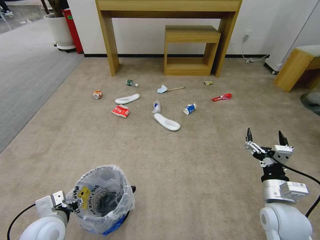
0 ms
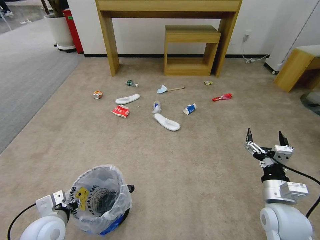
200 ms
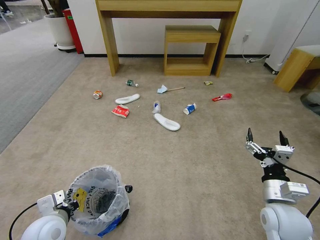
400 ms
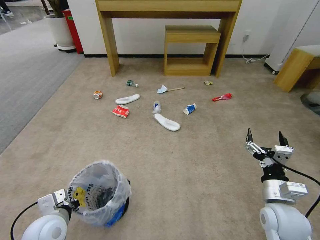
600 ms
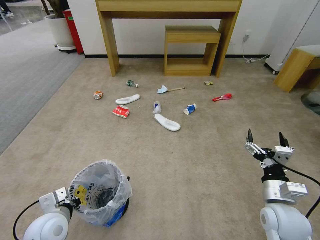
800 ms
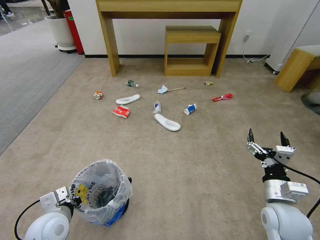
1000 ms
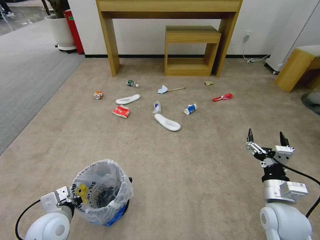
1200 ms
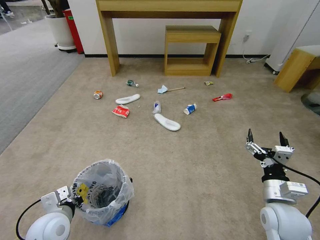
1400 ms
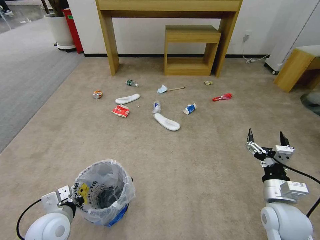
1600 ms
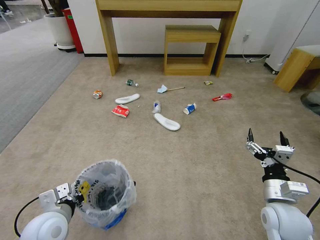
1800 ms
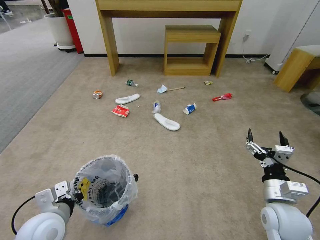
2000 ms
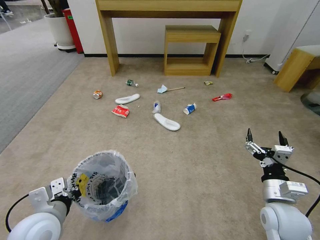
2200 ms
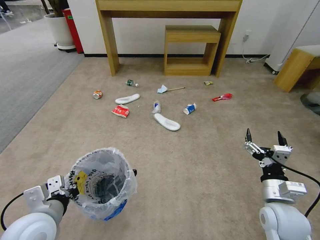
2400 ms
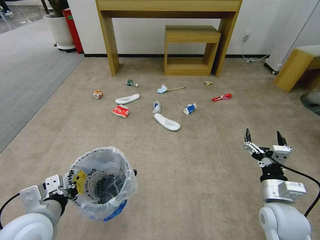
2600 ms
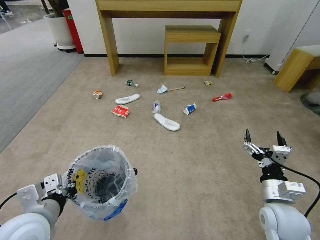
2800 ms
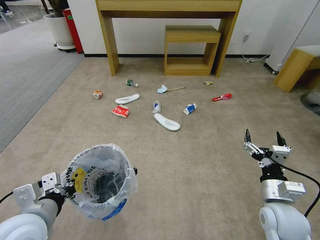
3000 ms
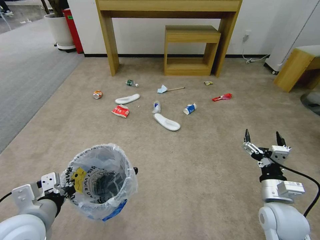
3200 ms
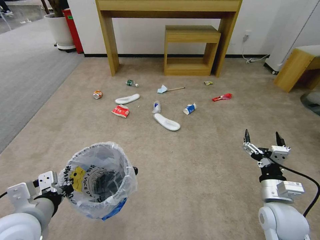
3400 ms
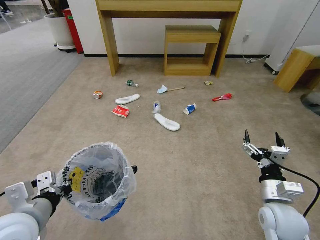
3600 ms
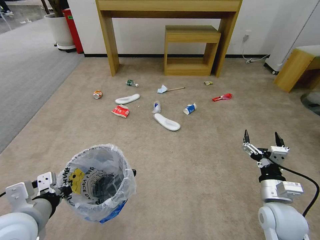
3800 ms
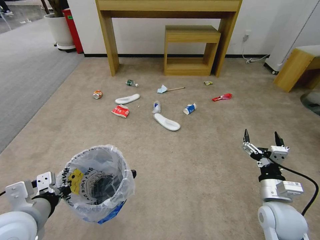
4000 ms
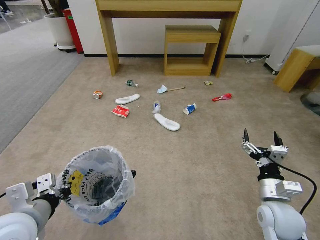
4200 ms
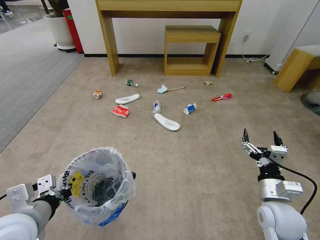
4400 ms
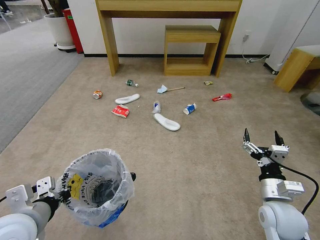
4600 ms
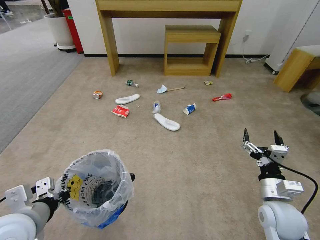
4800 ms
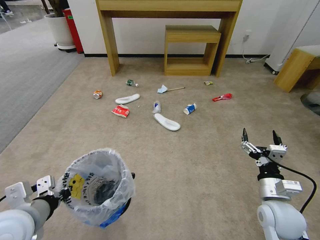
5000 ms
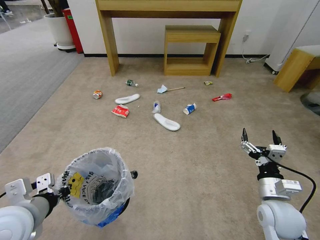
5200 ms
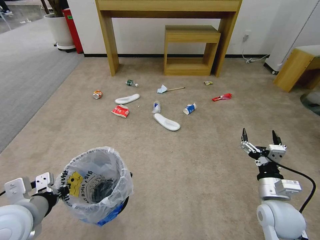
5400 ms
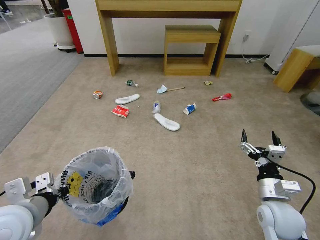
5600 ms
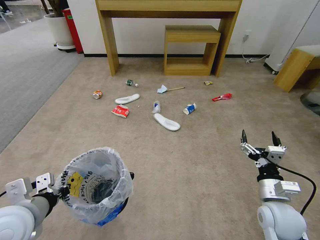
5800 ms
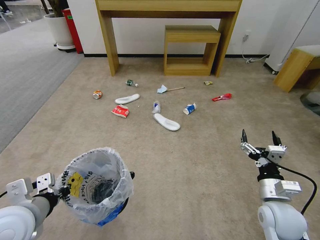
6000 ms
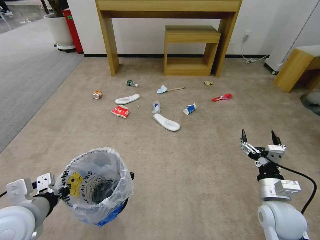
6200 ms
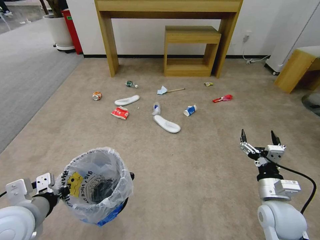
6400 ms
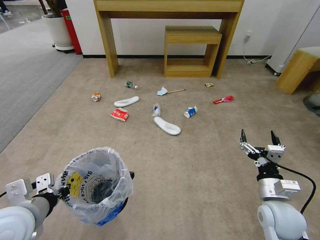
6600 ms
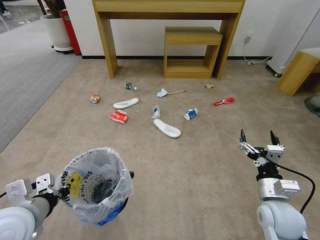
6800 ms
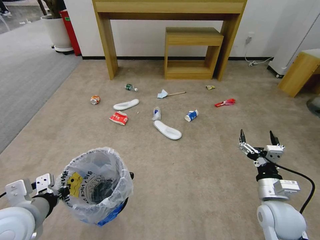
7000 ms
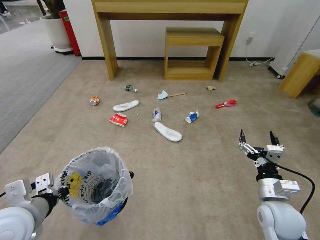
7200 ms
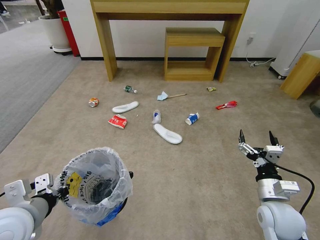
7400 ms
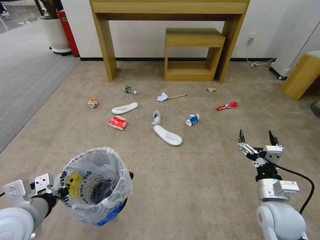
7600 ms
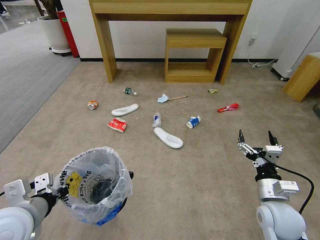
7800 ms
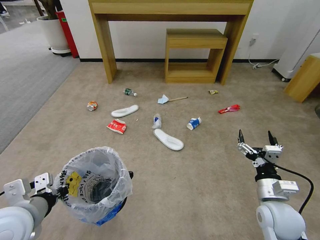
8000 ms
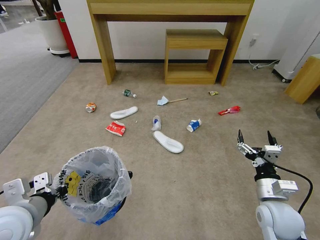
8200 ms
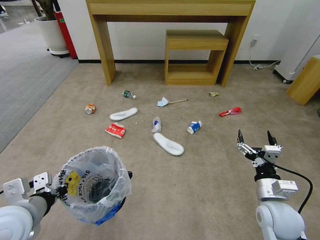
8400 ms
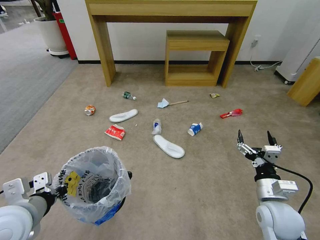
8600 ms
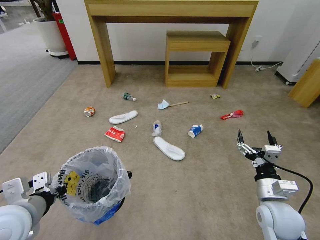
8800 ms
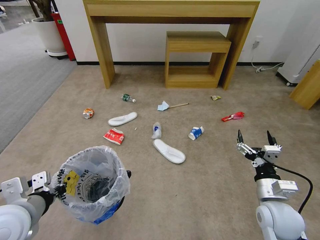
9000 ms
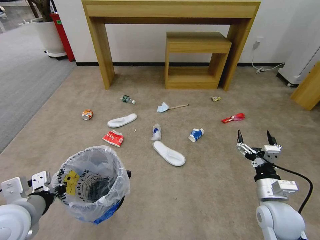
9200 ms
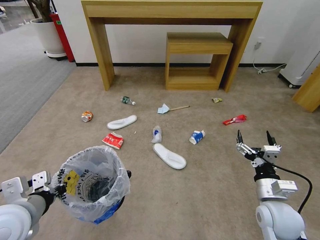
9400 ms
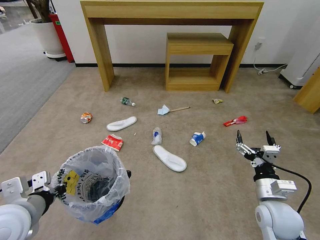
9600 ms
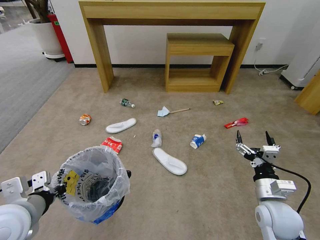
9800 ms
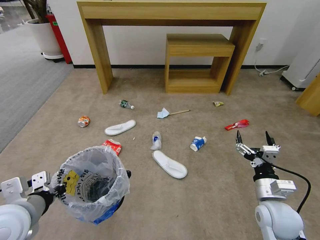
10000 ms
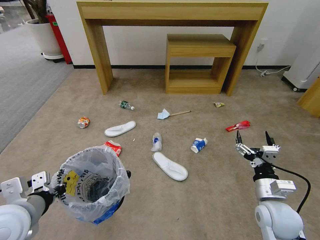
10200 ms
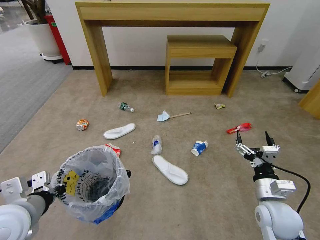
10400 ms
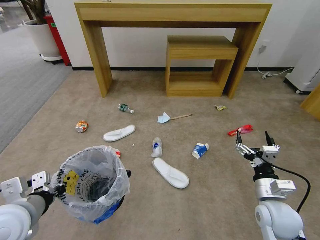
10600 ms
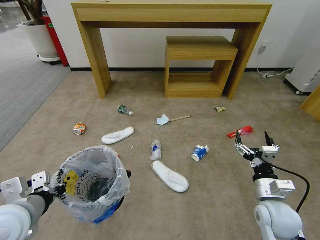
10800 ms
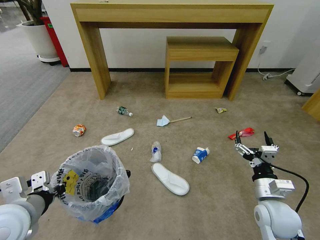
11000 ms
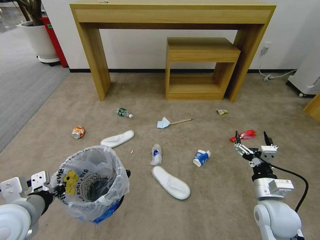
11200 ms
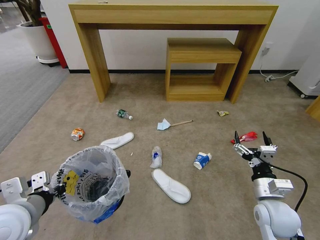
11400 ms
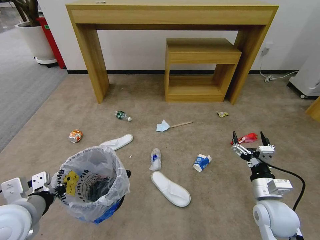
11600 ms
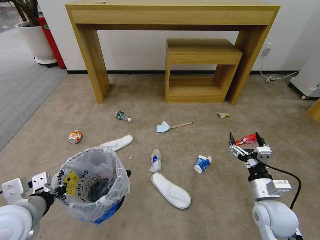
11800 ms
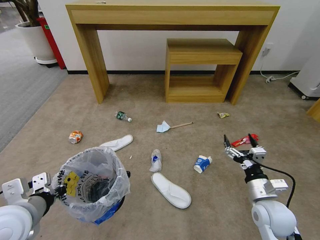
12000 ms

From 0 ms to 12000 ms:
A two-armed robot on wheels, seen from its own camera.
Task of the whole recording: Pick up the trash bin and place the garbage on the floor into it.
From 0 ms to 1600 ms: The left gripper closes its fingers.
From 1600 ms to 3000 ms: The left gripper travels upward by about 10 cm.
From 3000 ms to 6000 ms: The grippers move only a little.
From 6000 ms to 7600 ms: Neither gripper changes place.

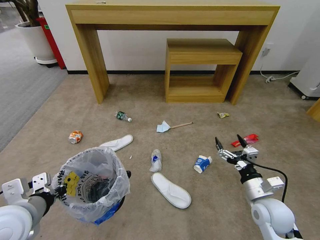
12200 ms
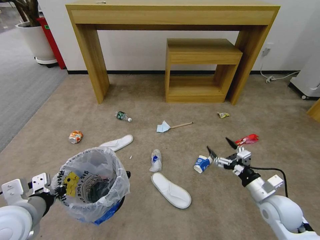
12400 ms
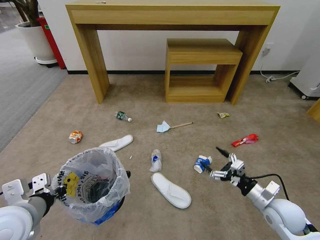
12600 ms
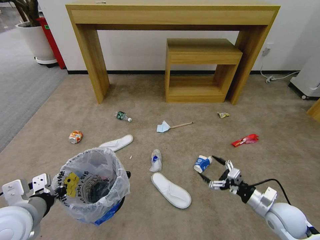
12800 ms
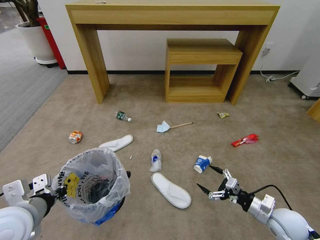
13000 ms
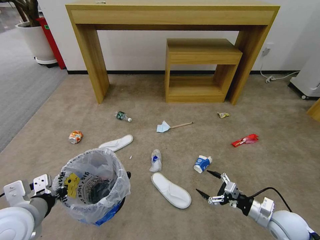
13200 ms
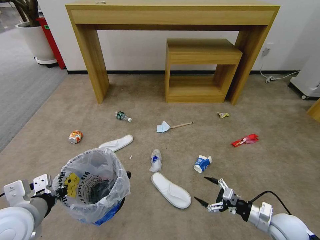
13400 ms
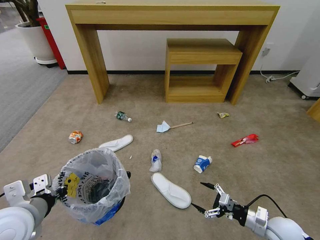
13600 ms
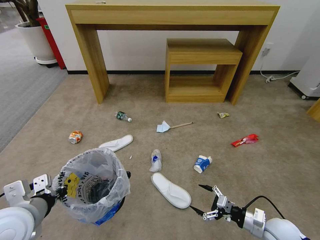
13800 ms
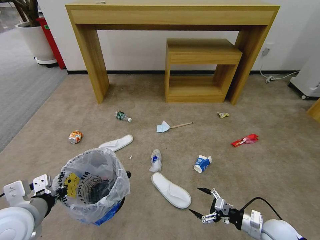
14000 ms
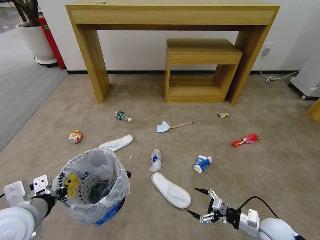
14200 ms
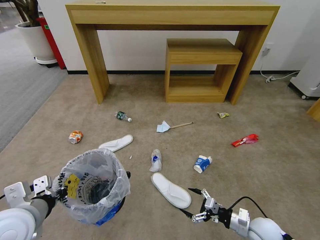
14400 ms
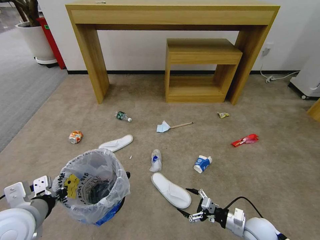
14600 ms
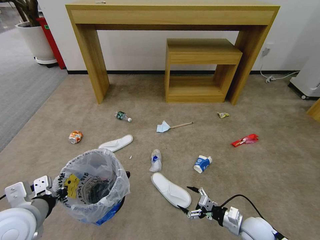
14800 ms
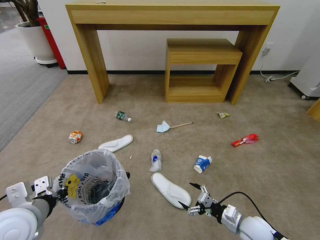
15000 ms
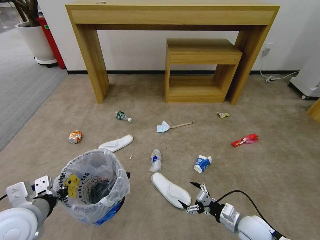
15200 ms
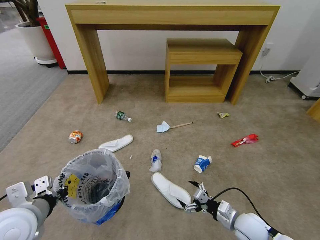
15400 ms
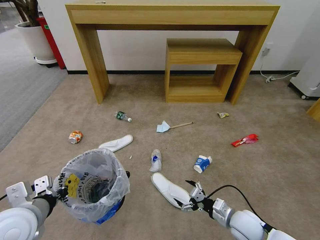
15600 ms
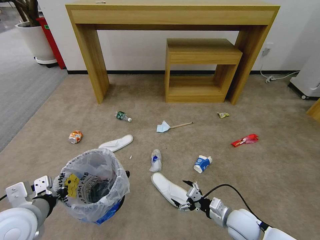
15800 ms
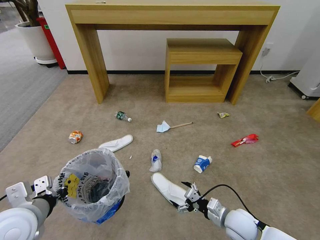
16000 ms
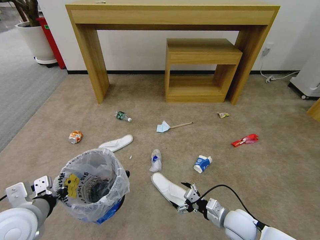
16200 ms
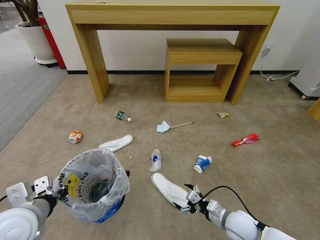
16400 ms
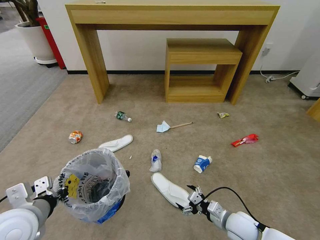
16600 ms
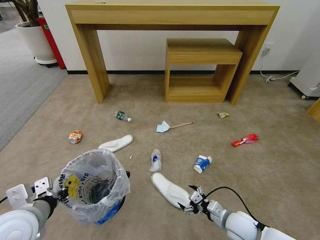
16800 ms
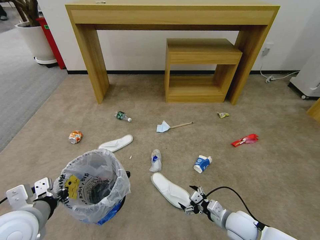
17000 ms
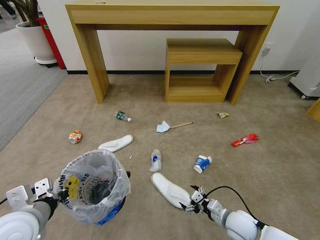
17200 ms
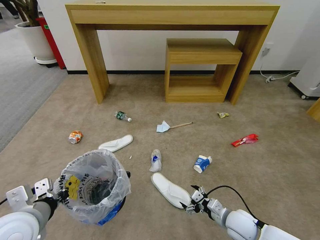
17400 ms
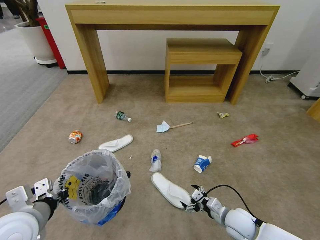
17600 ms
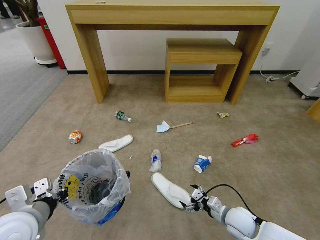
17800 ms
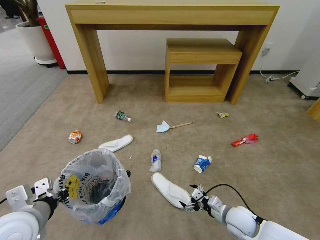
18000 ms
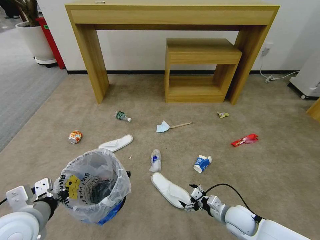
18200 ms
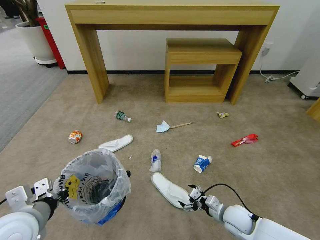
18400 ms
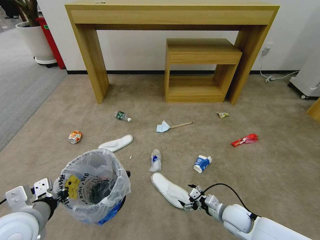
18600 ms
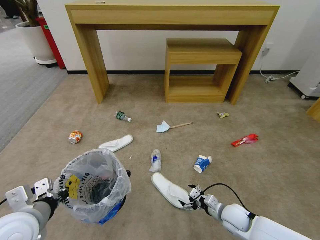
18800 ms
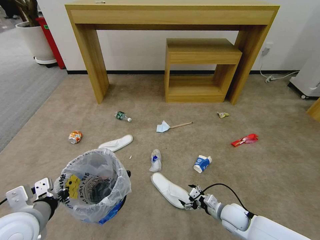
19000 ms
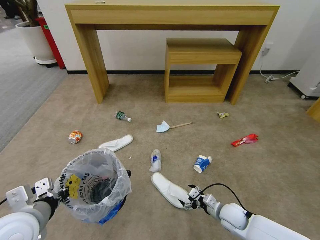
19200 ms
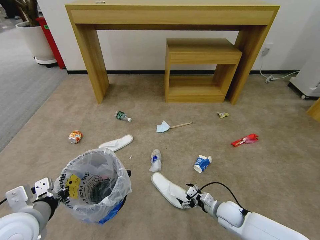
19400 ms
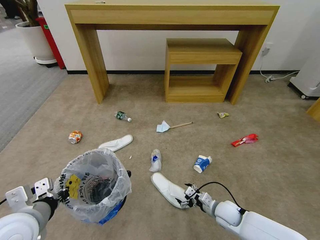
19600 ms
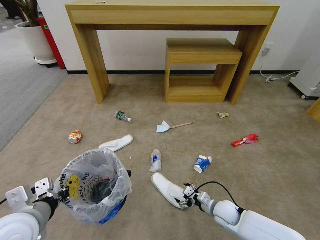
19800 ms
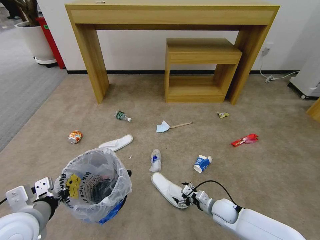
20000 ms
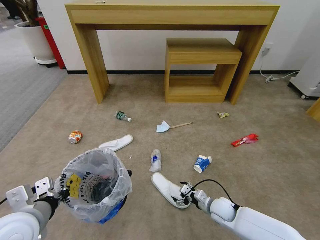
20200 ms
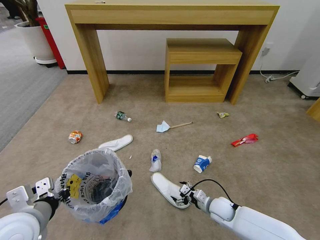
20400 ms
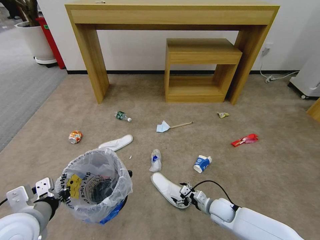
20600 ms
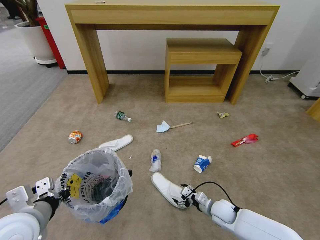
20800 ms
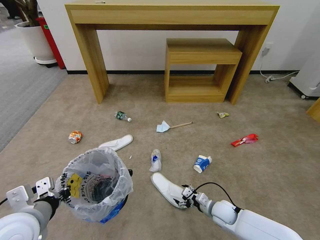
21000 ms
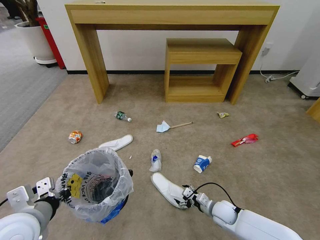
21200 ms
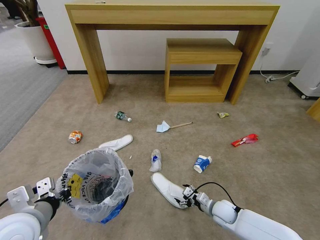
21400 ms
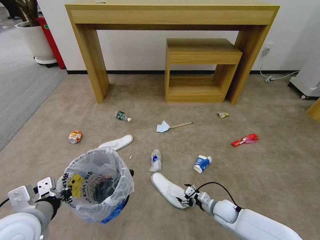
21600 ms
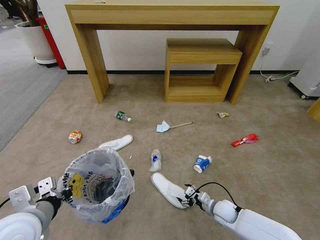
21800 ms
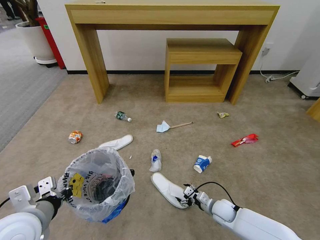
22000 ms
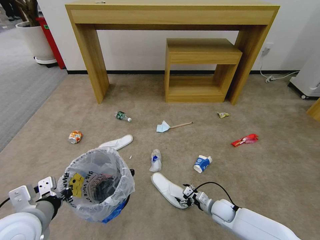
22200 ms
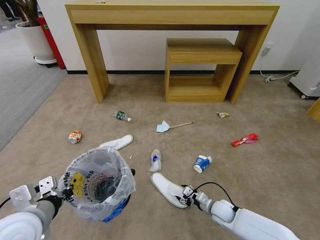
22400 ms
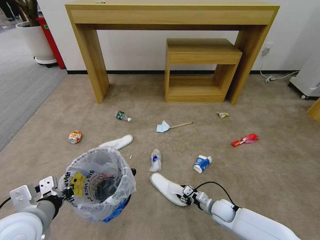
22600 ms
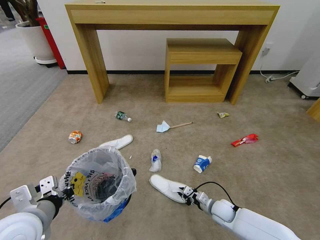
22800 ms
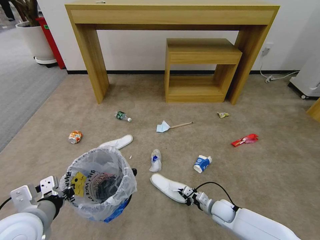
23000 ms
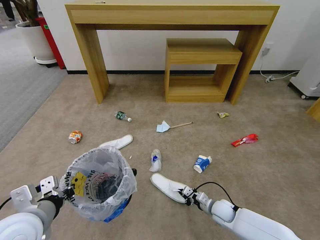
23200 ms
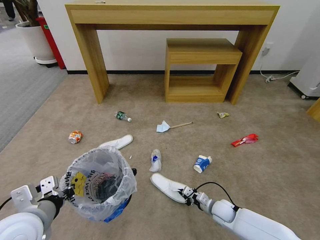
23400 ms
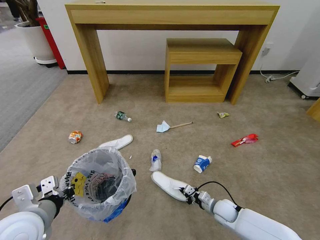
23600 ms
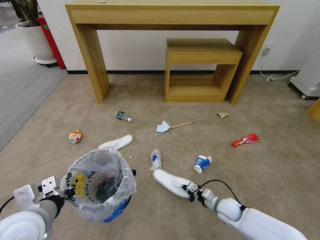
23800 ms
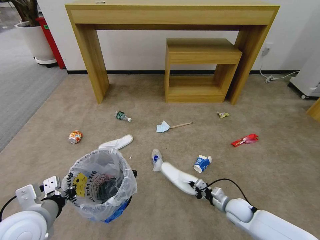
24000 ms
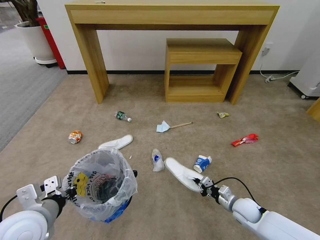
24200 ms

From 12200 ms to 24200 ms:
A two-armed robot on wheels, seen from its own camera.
Task of the whole recording: Pick up the trash bin and place the garbage on the floor into it.
From 12200 ms to 13800 ms: The right gripper goes approximately 10 cm downward.
From 13800 ms to 15200 ms: The right gripper travels to the left by approximately 10 cm.
From 15200 ms to 18200 ms: The grippers stay close to where they were, moving slightly.
From 18200 ms to 19800 ms: The right gripper ends up about 5 cm from where it was.
From 19800 ms to 22600 ms: The grippers move only a little.
From 22600 ms to 24200 ms: The right gripper heads to the right and upward, covering roughly 10 cm, and closes.
